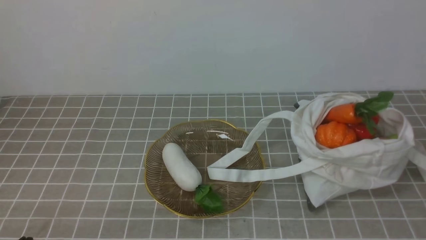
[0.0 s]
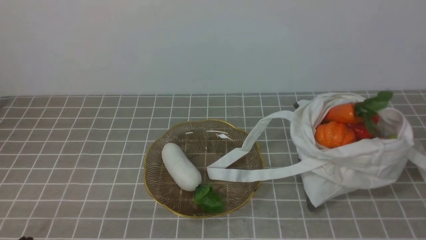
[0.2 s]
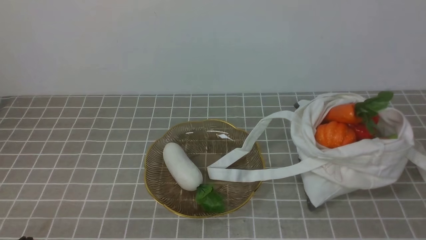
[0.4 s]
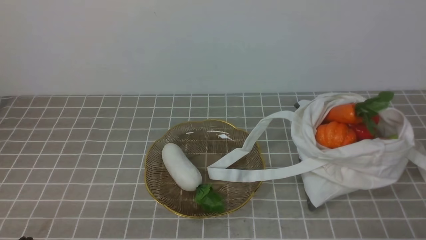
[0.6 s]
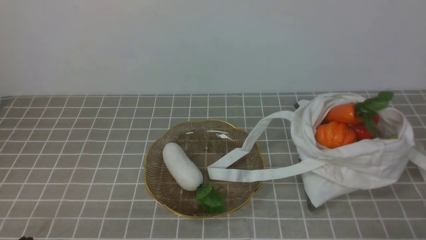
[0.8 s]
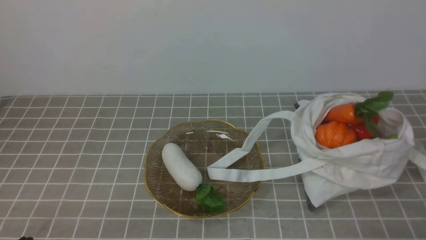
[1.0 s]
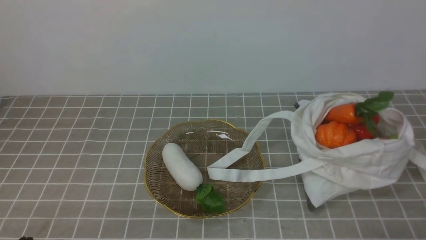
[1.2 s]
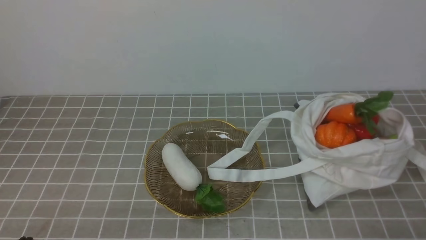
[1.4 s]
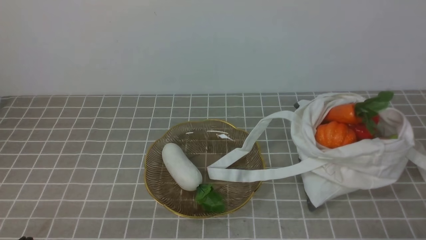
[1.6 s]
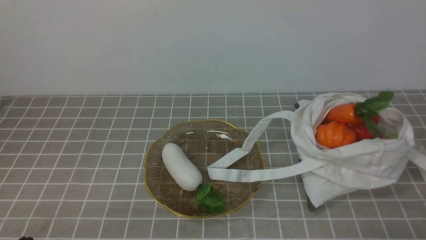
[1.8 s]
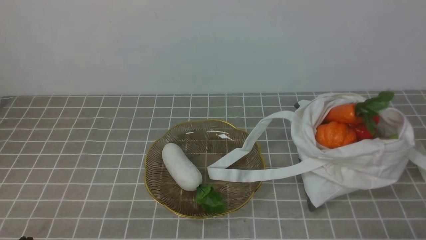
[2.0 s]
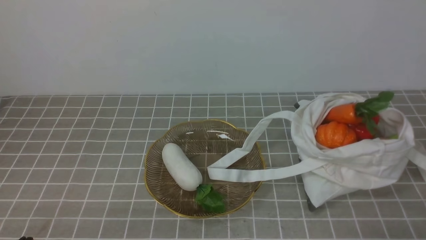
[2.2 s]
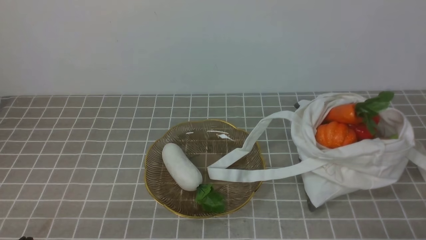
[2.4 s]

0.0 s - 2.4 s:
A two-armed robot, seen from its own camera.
Task of the whole recording: take vegetables from bag on grey coffee tablecloth place on plate.
1.2 s - 2.4 s: Both grippers stay about where they are.

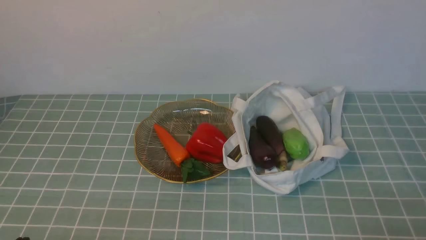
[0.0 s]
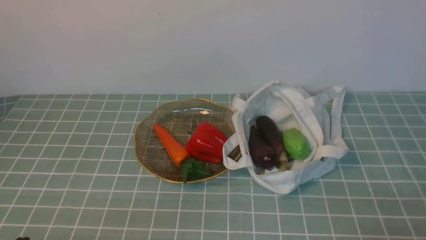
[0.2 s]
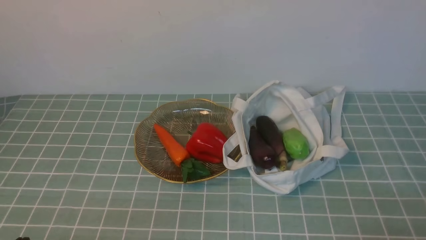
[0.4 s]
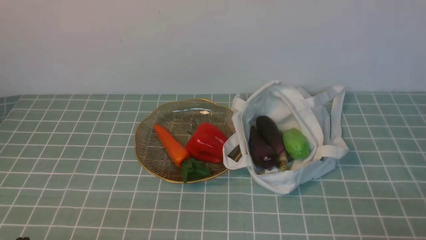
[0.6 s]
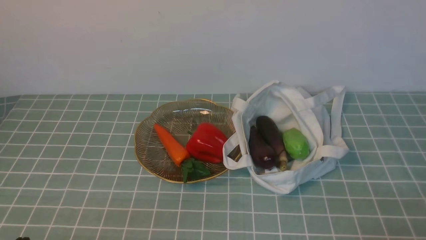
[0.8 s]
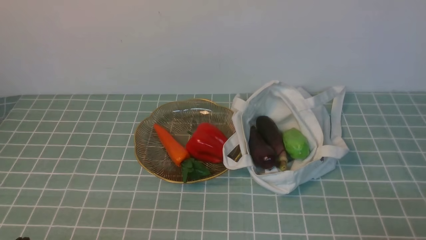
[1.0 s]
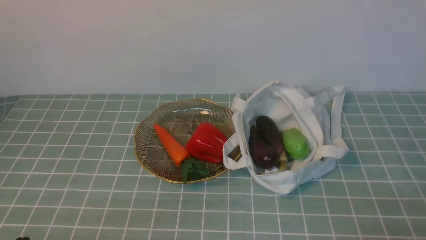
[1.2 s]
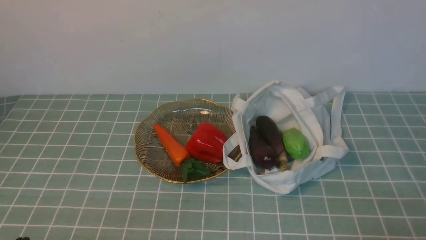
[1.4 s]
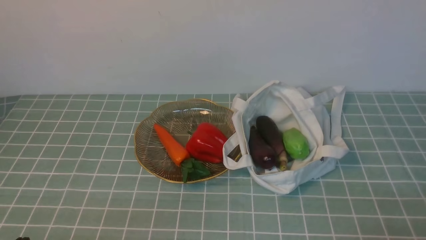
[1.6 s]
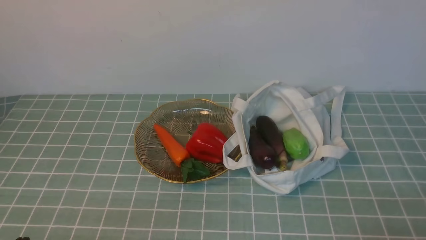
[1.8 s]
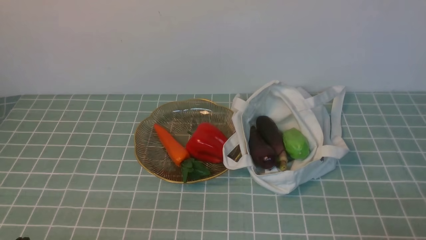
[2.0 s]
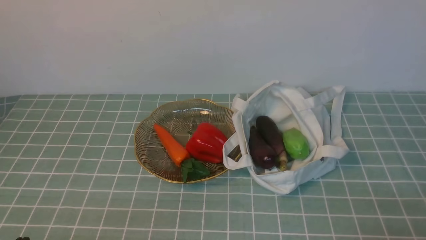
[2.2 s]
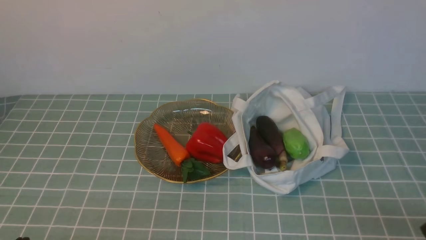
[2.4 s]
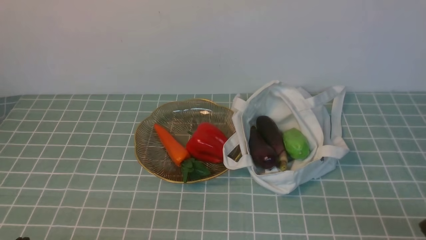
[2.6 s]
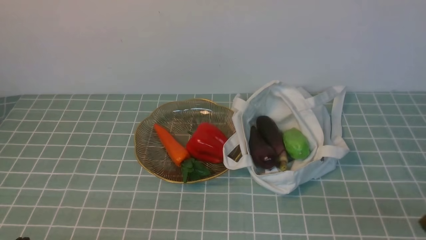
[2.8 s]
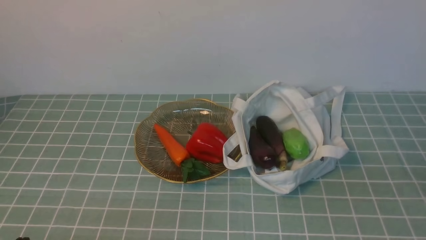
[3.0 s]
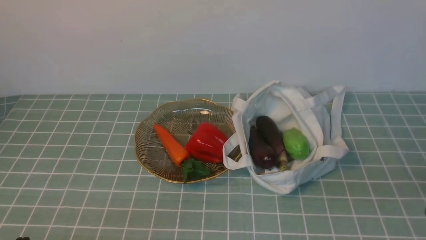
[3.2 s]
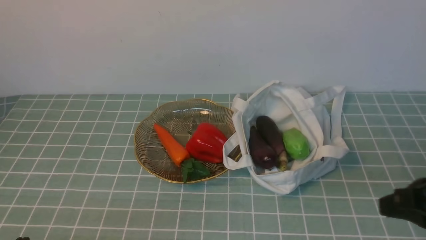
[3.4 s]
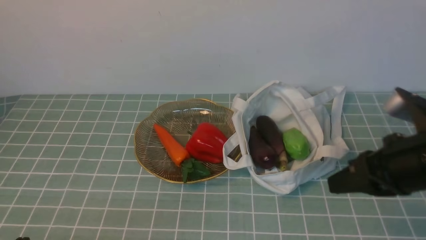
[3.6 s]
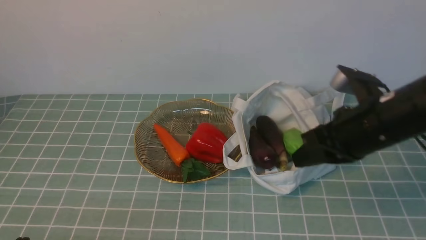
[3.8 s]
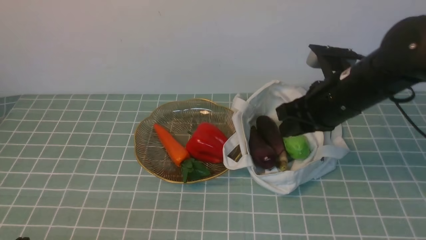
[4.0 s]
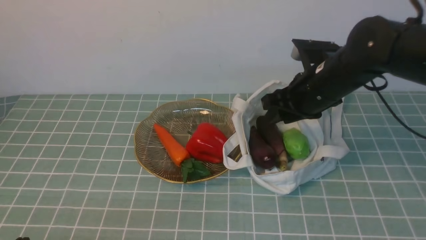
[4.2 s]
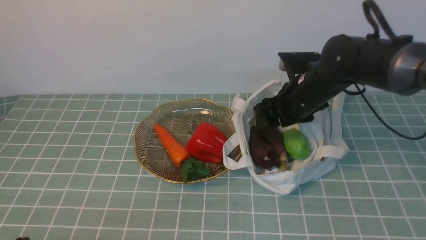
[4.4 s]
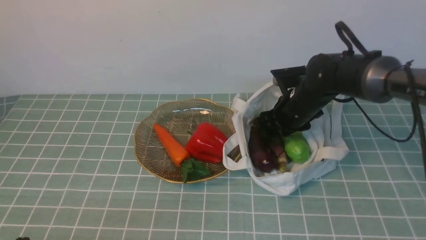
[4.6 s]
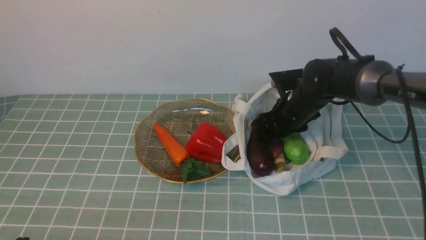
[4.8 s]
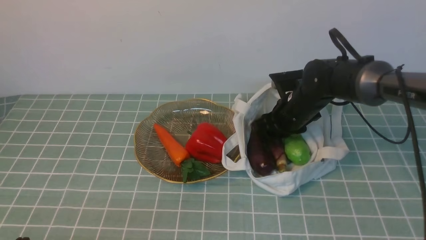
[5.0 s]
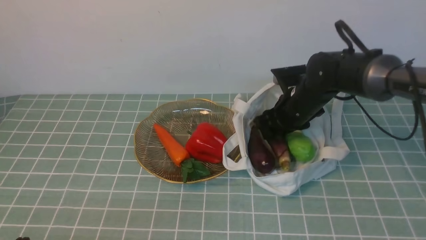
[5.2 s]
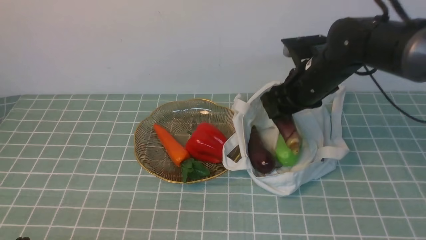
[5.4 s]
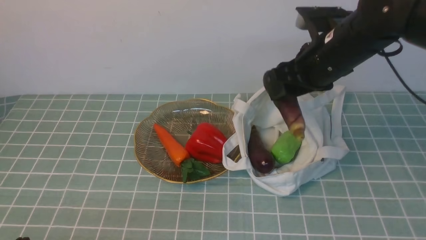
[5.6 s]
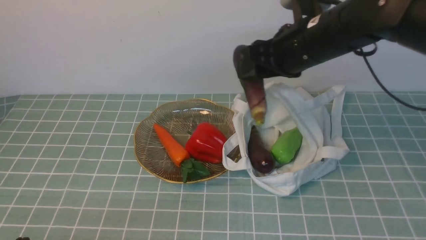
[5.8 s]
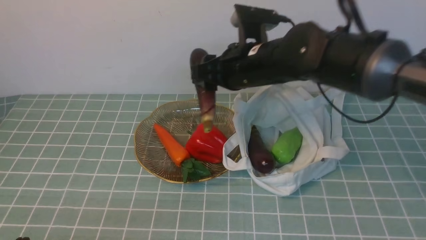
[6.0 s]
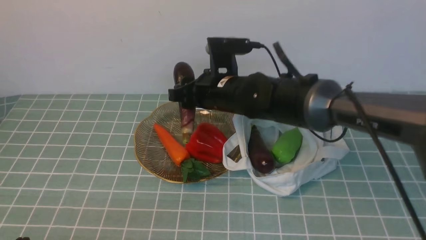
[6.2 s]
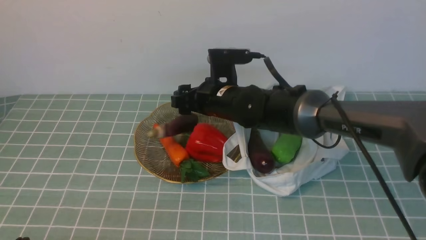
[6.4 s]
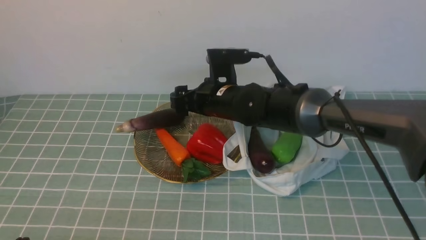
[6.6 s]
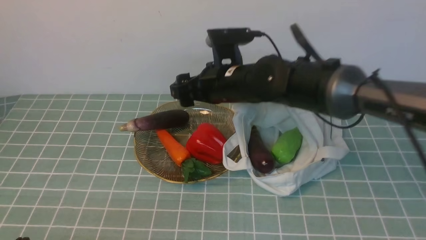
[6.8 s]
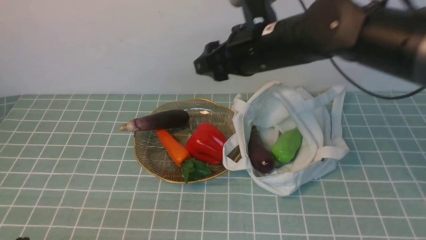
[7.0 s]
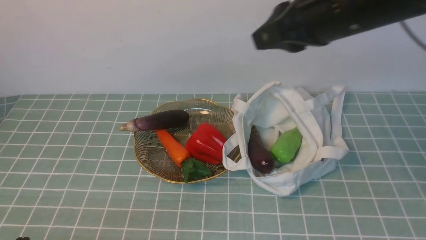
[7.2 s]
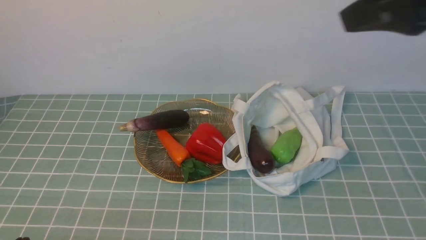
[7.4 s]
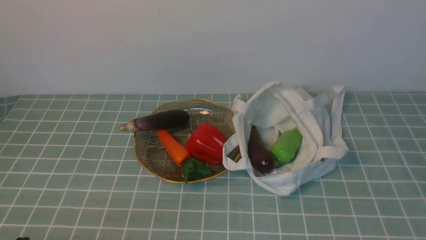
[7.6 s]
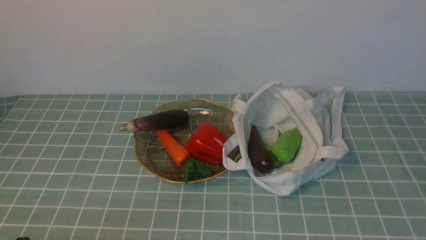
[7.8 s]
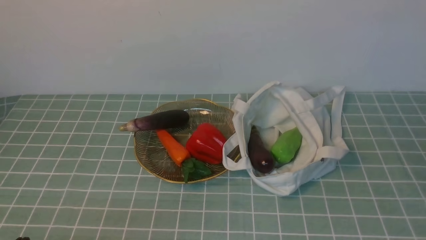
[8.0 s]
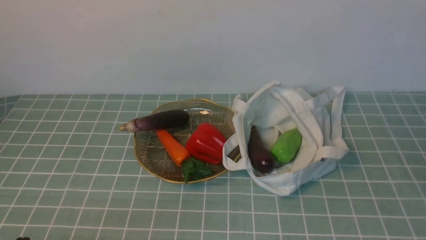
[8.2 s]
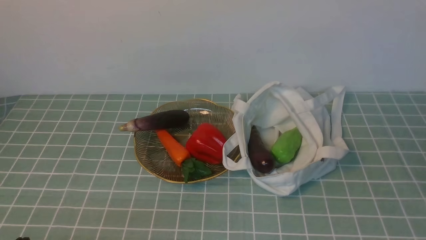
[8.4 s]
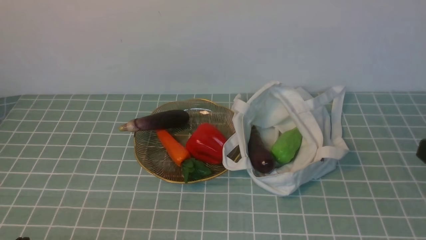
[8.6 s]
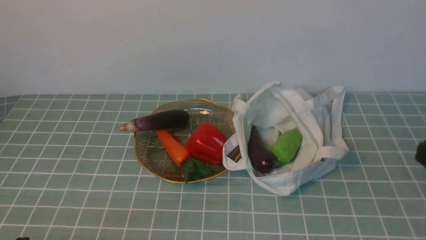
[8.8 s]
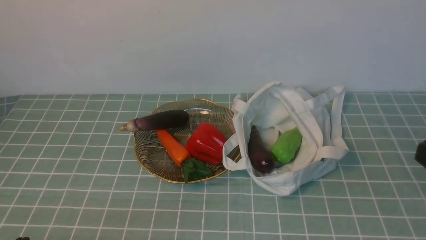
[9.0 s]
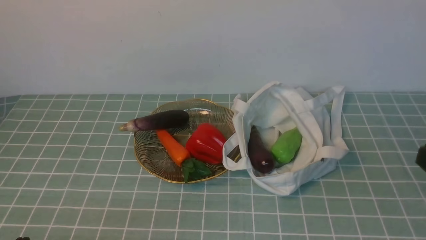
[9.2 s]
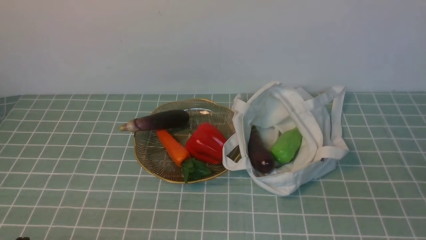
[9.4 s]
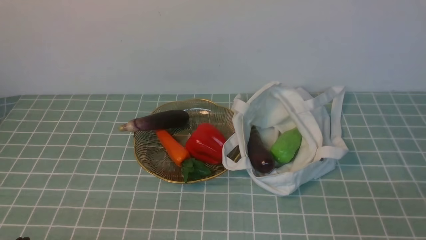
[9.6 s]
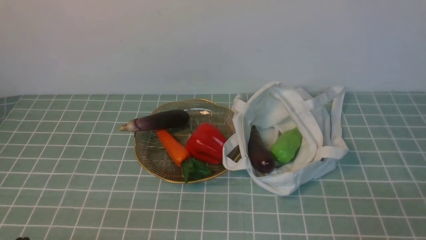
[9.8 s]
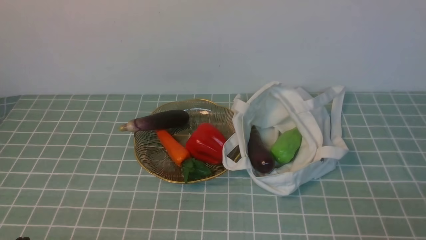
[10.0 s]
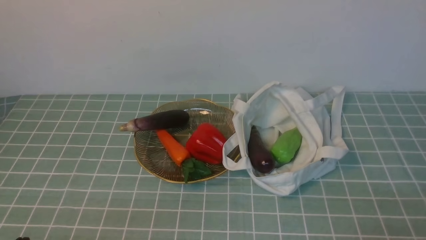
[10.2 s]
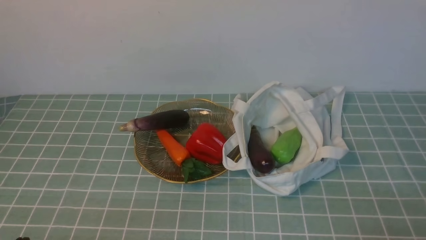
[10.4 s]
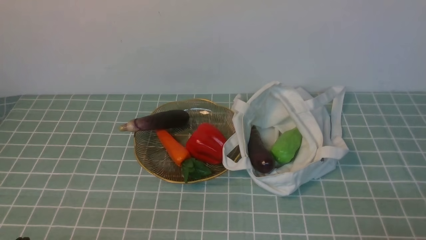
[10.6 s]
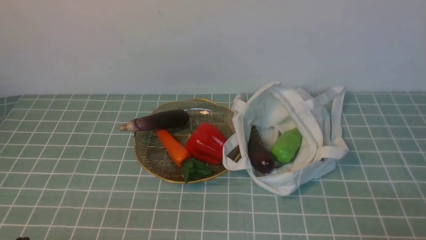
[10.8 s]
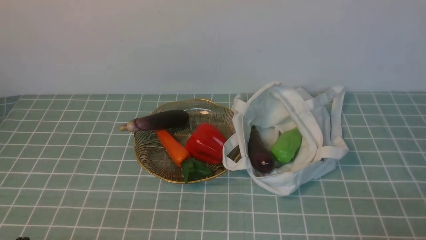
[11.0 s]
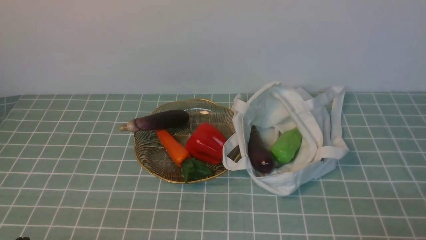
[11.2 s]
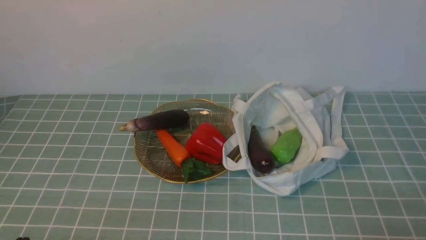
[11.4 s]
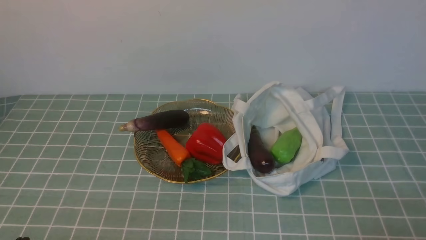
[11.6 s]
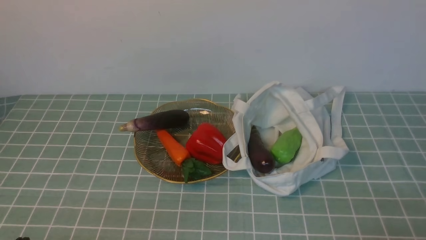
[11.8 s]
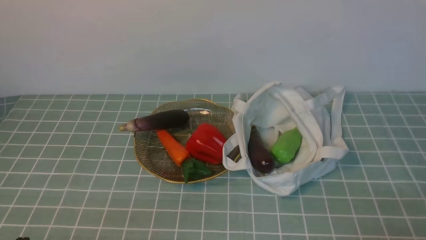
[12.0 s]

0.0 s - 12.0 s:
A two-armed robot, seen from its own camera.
Task of the whole recording: take vegetables from cloth bag on blue coffee tablecloth place on plate.
Step, 0.0 s - 4.8 s: Grasp the eggplant with right gripper.
Step, 5.0 s - 7.0 s: Place the eggplant on the plate with right gripper.
0.0 s - 1.6 s: The two grippers keep their place.
3.0 s - 4.4 s: The right gripper is displaced forward by approximately 35 cm, and opens its fingers.
4.4 s - 6.0 s: The right gripper travels to the left and upward by some 10 cm.
6.0 s - 7.6 s: The right gripper goes about 40 cm backward, upward and to the right, and closes its fingers.
10.4 s - 12.0 s: Both grippers stay put.
